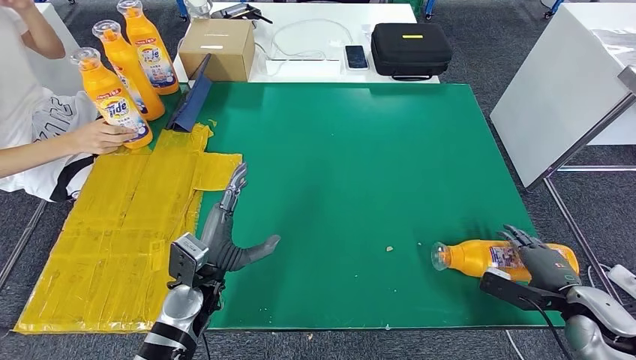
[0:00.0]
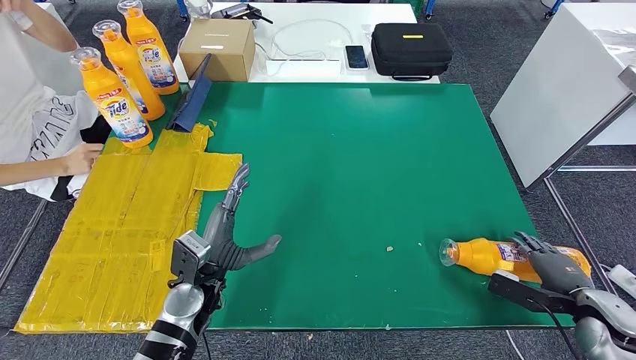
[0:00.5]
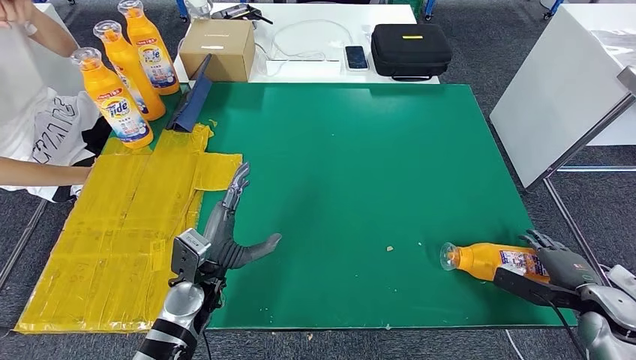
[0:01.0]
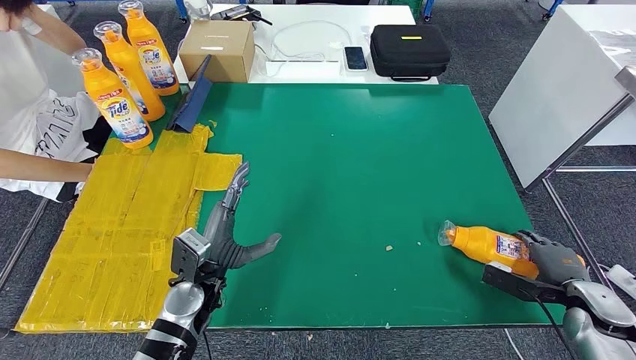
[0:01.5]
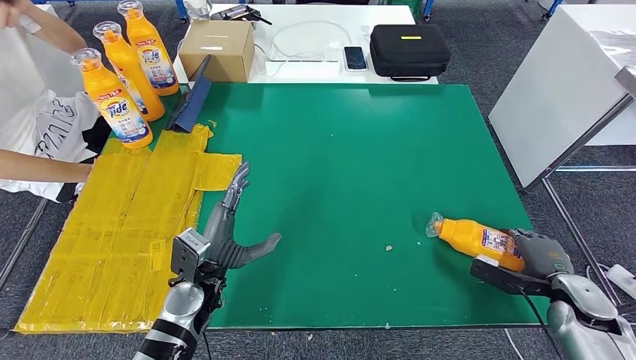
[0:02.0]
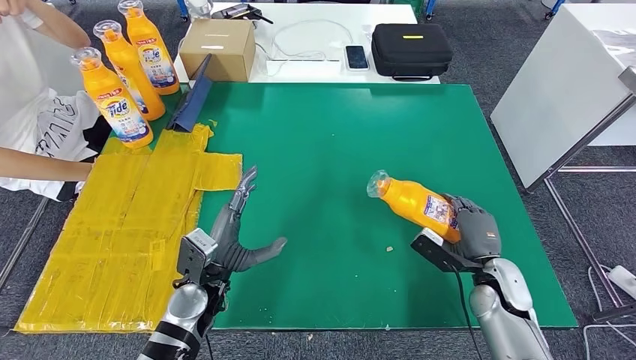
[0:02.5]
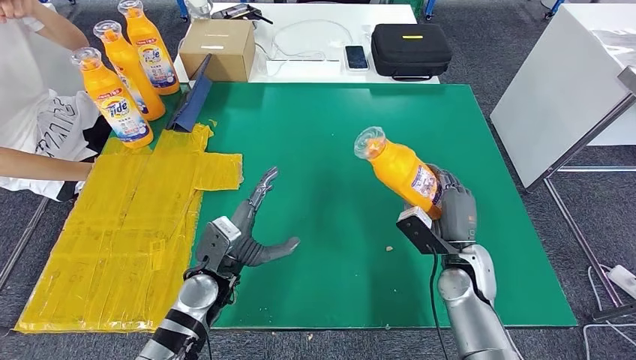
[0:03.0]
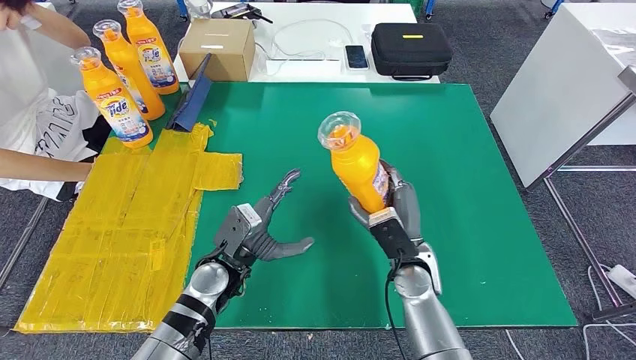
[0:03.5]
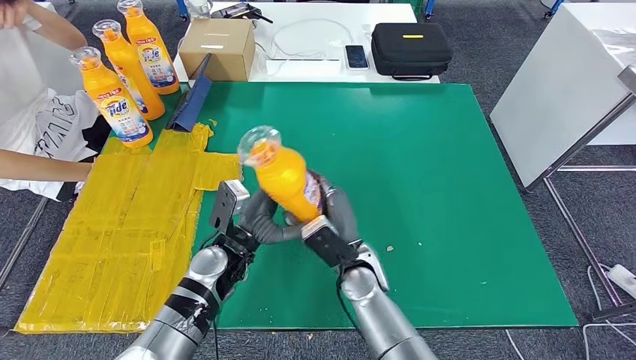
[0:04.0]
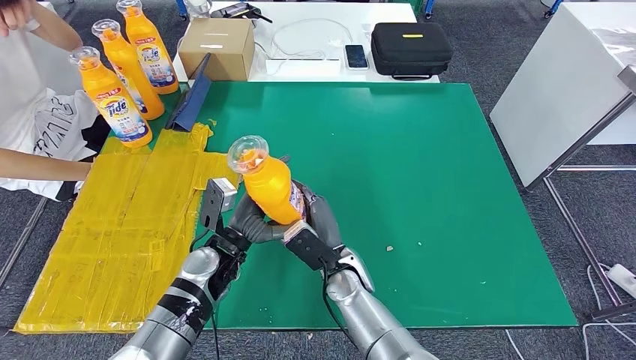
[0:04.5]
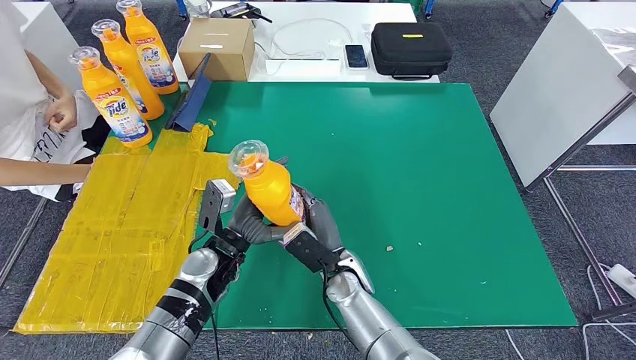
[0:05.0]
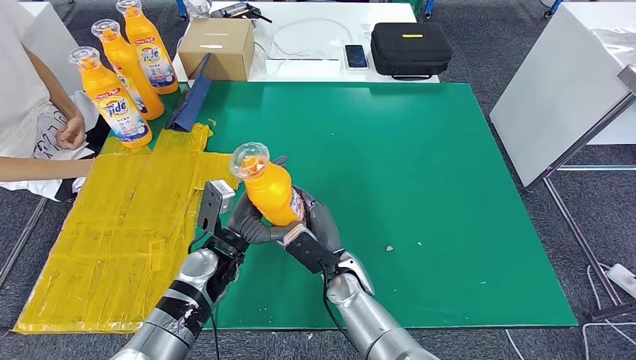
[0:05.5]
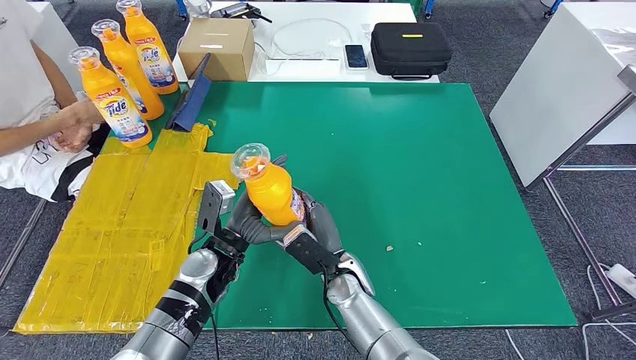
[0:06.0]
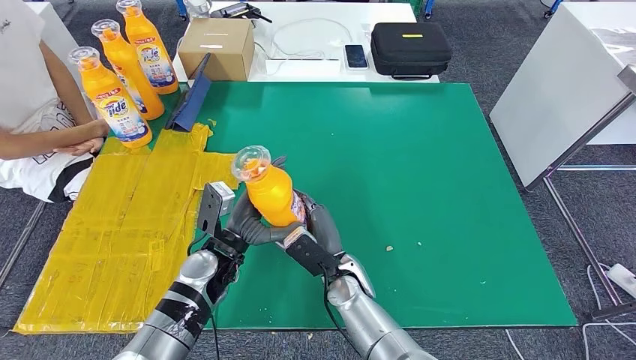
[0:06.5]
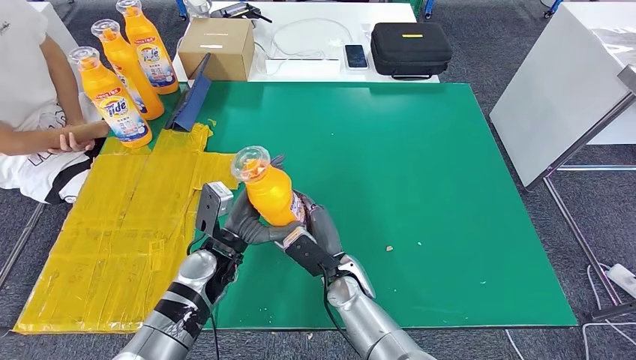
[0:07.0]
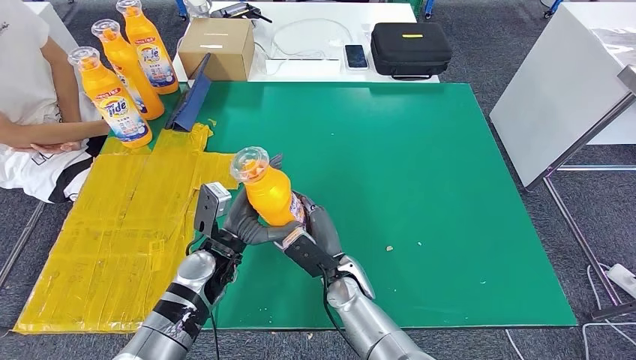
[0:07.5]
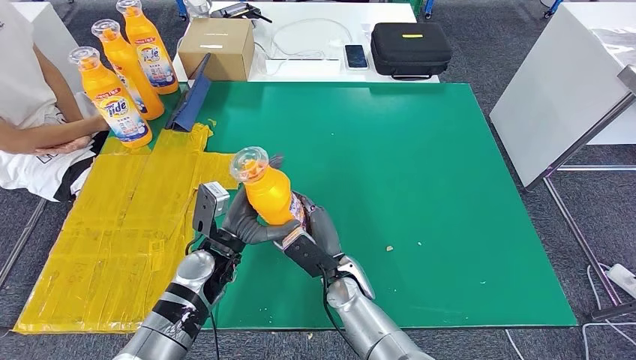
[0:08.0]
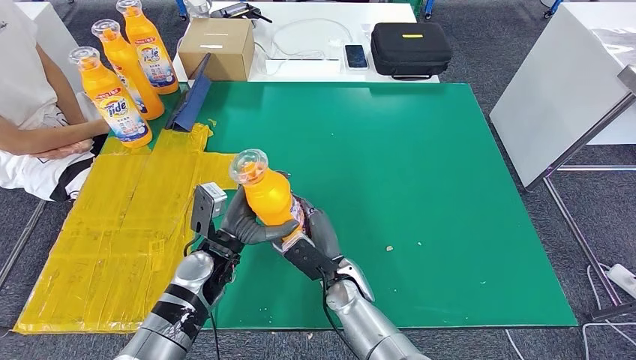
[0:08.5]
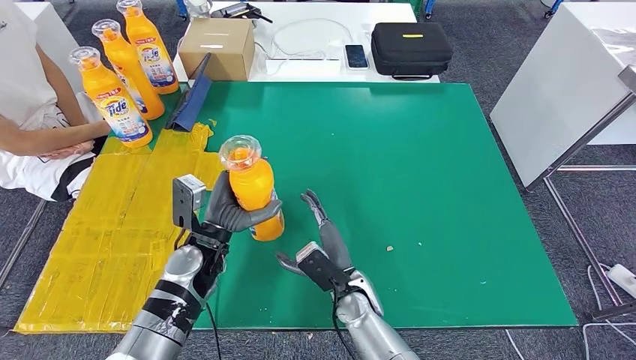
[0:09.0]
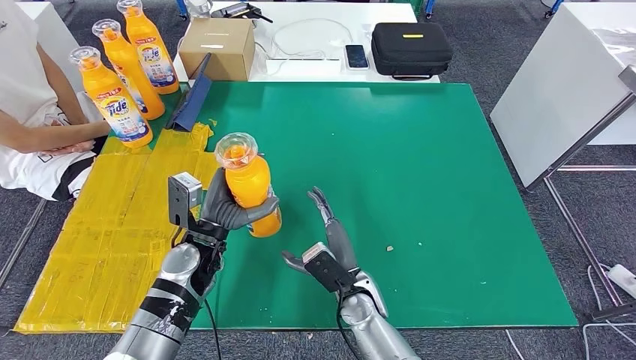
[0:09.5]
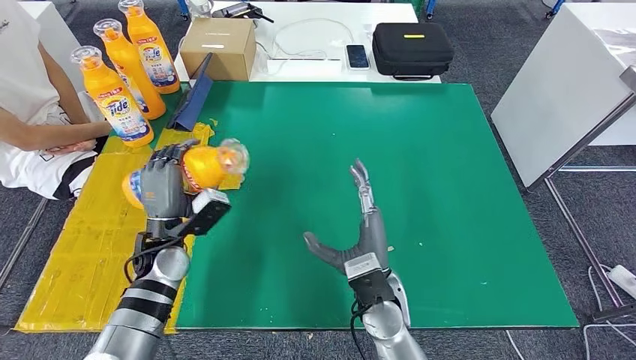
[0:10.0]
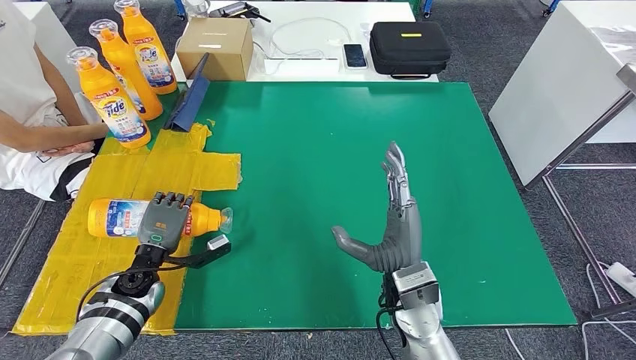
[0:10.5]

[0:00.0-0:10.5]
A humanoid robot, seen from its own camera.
Step, 0:00.0 to 0:05.5: Pick up the bottle from the table.
0:00.0 to 0:02.0: The hands move only a little.
0:04.0 to 0:06.5: The hands stay close to where they were, moving slightly.
0:06.5 to 0:08.5: Both hands stay put.
0:08.5 to 0:10.5: The left hand heads to the left and downward, covering about 15 cm, while the right hand moves upward and to the right, approximately 15 cm.

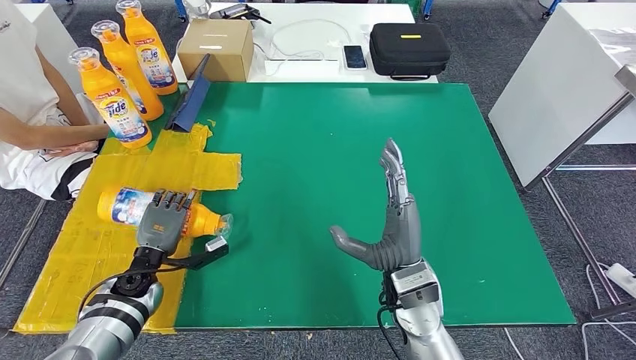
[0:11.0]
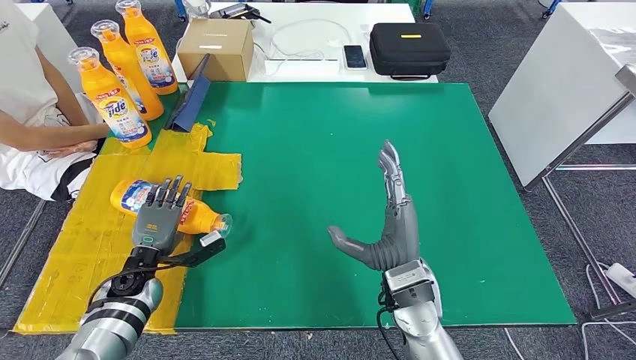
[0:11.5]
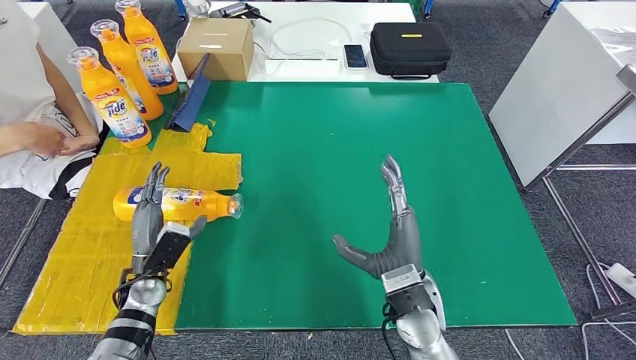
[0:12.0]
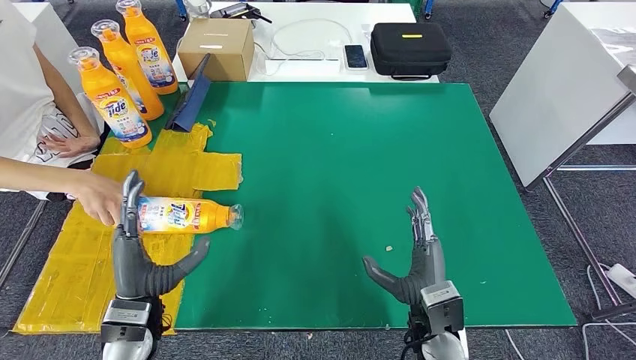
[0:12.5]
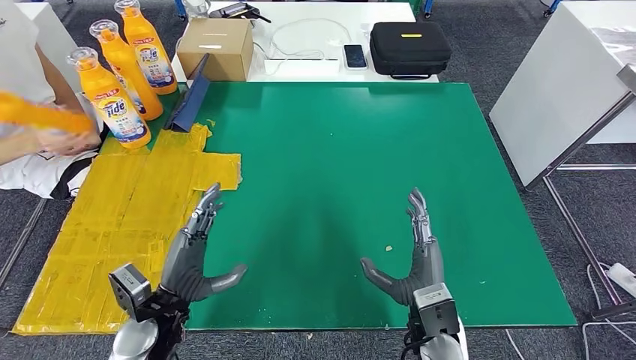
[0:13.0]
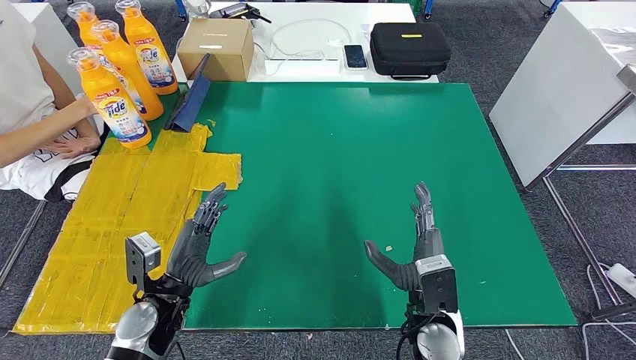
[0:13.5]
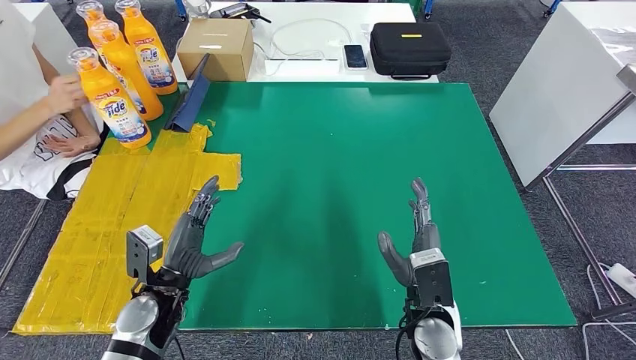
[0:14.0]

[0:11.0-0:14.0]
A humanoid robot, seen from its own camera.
Step, 0:11.0 to 0:14.0: Flip the bottle to face forward.
0:11.0 to 0:12.5: The left hand goes some 15 cm backward, upward and to the right. The right hand shifts approximately 5 cm downward.
0:12.5 to 0:14.0: The left hand ends up some 5 cm from where it was.
